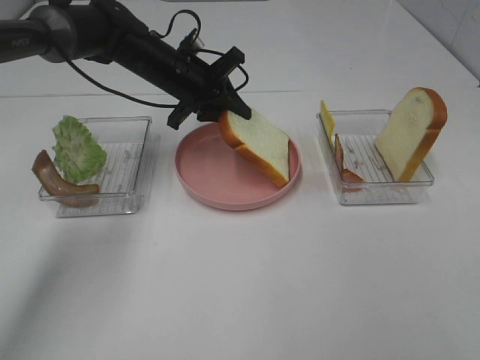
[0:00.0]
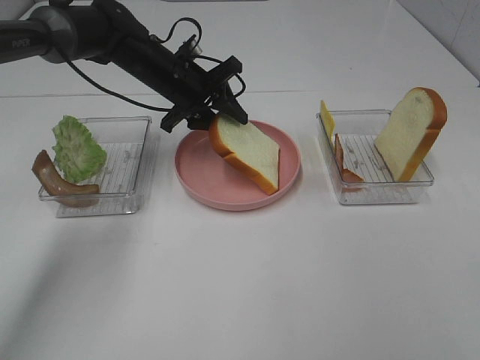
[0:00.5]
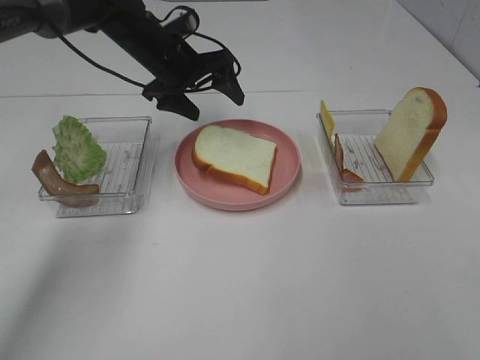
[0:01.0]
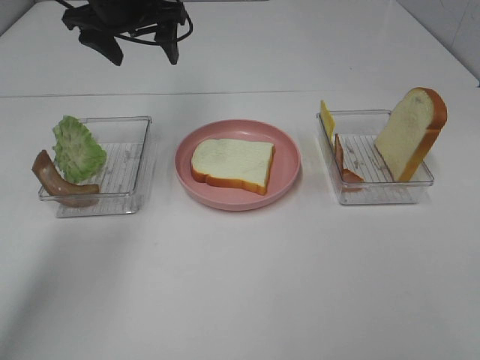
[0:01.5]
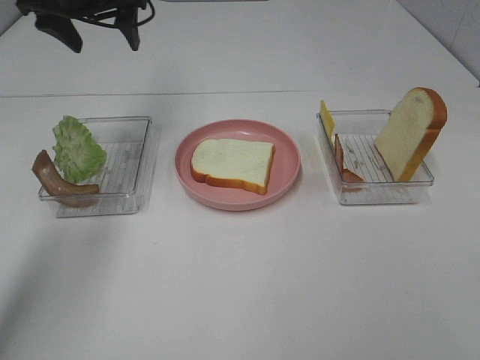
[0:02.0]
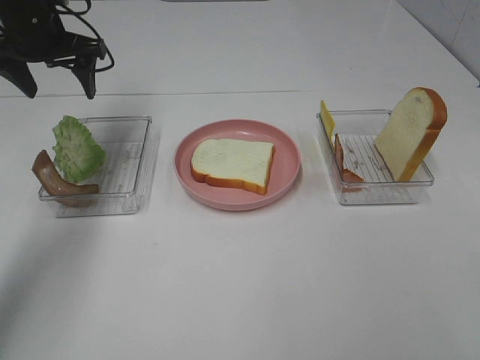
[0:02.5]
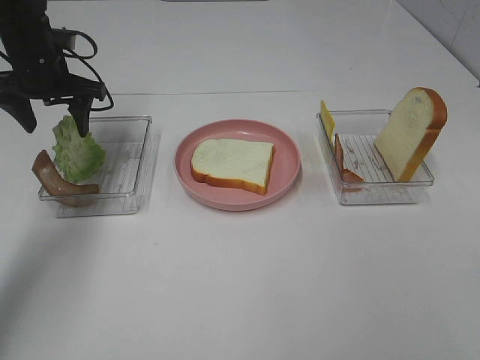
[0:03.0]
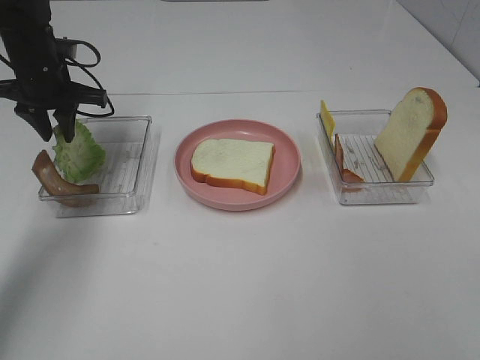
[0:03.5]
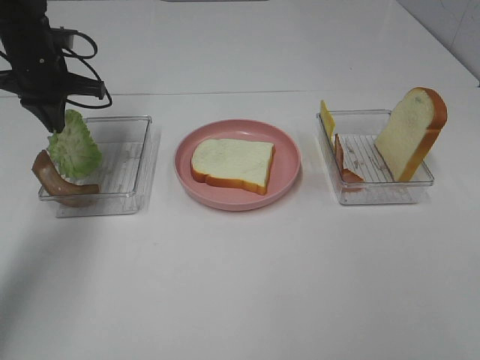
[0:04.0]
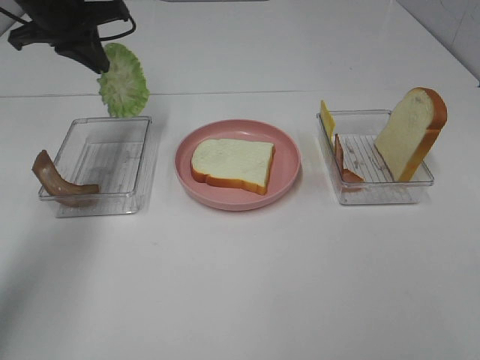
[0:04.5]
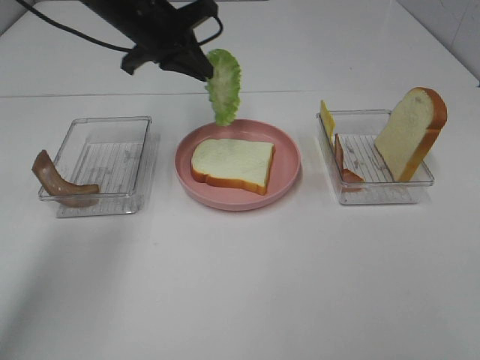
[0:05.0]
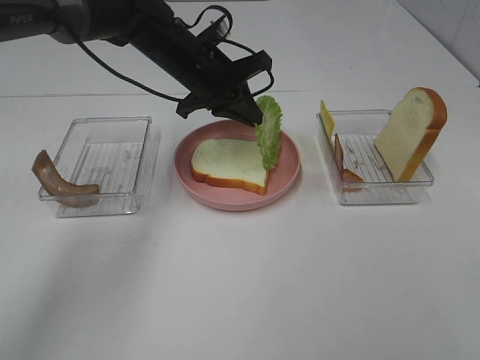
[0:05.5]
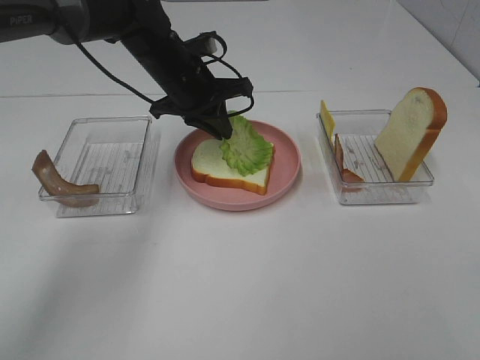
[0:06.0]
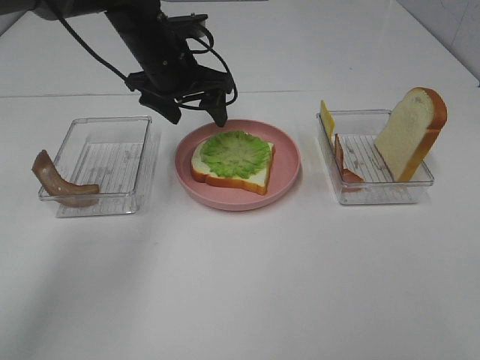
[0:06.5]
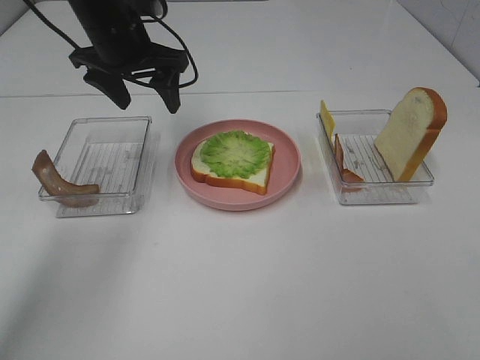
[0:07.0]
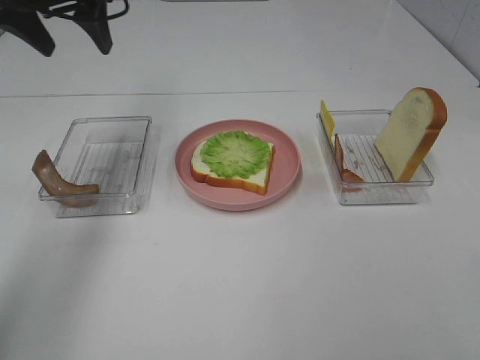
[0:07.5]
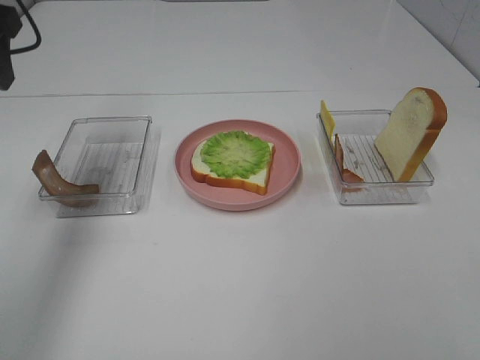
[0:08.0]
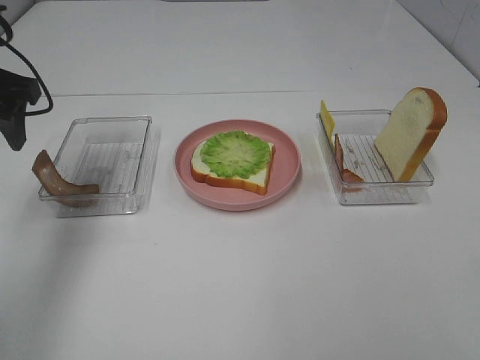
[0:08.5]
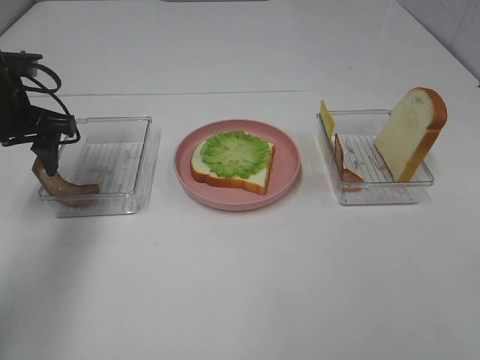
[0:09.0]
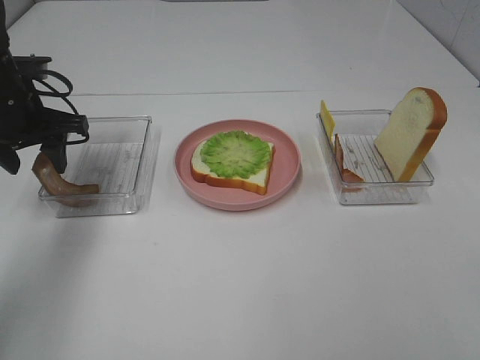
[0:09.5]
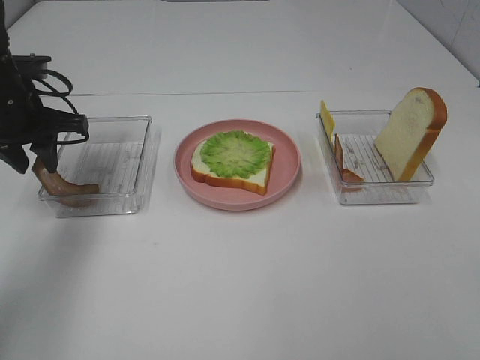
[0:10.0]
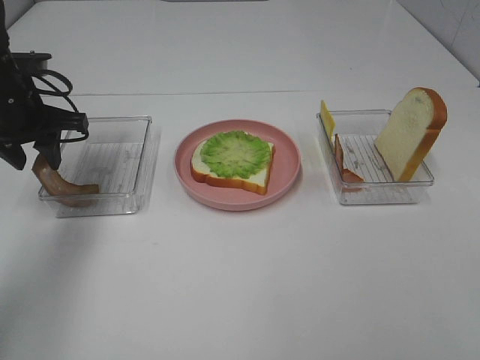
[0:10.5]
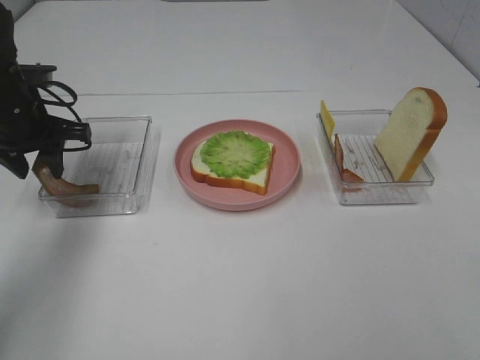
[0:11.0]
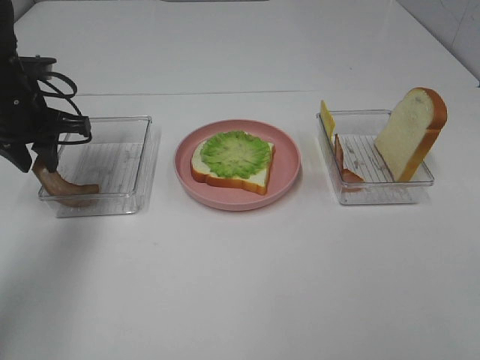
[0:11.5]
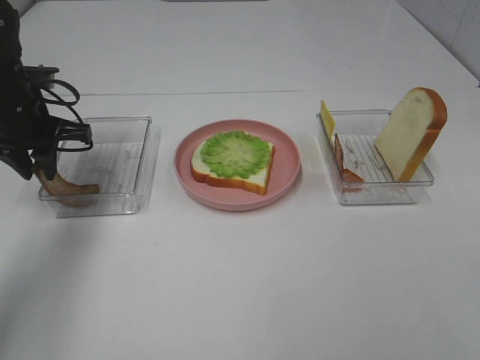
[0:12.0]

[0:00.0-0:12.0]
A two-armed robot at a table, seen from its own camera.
Task of the whole recording: Make sandwiches.
Step, 1.5 to 3.5 s: Left hand:grab the lettuce slice.
Step, 4.0 to 6.5 s: Left hand:place the lettuce slice on the bread slice.
0.0 to 2.0 s: The left gripper heads upward and to the left, covering roughly 20 cm, and opens up.
2.0 to 4.0 s: The left gripper travels downward and to the left by approximately 10 cm, and closes its fingers.
4.0 to 6.0 s: The left gripper moves to the right, some 20 cm.
6.0 to 8.0 s: The left gripper travels to the left, upward and backward by roughly 30 cm, and opens up.
8.0 to 10.0 s: The left gripper shifts approximately 15 cm downward, and closes up.
10.0 to 12.0 s: The grippers make only small movements.

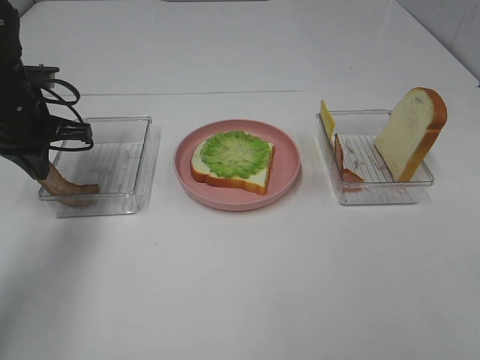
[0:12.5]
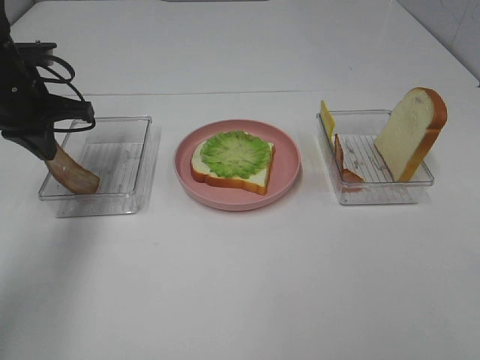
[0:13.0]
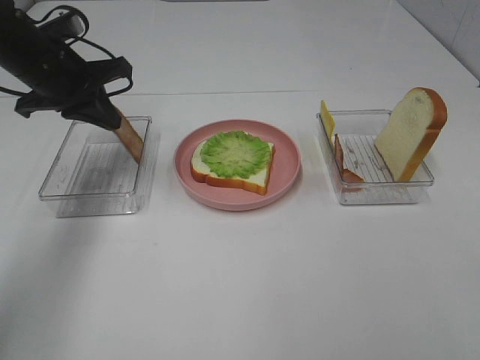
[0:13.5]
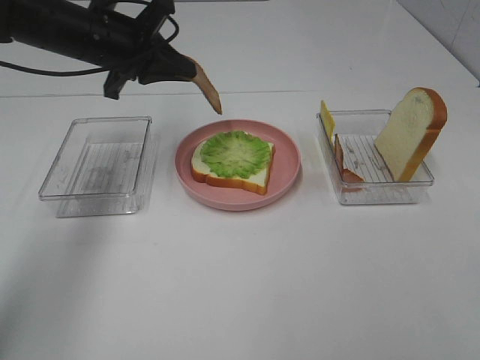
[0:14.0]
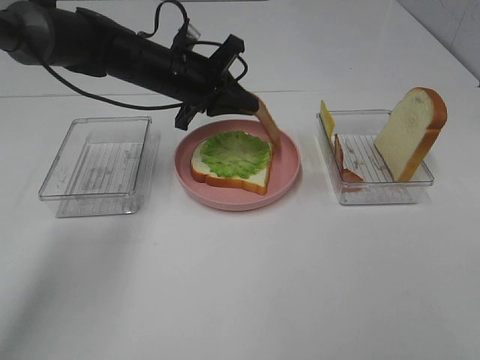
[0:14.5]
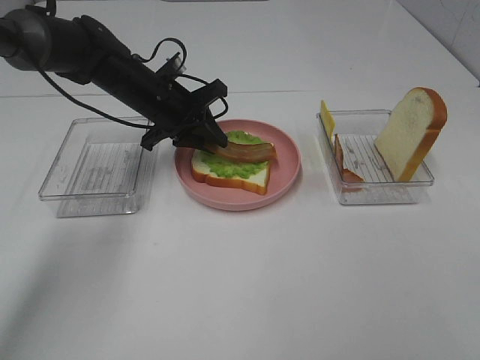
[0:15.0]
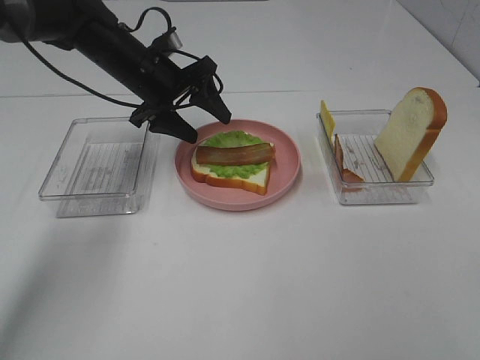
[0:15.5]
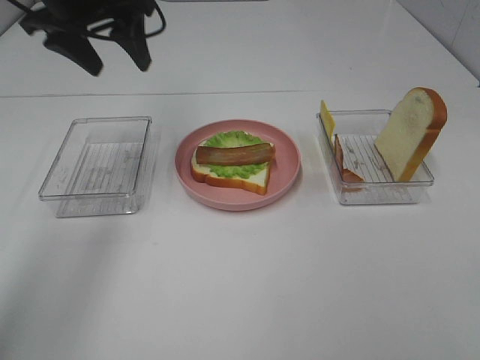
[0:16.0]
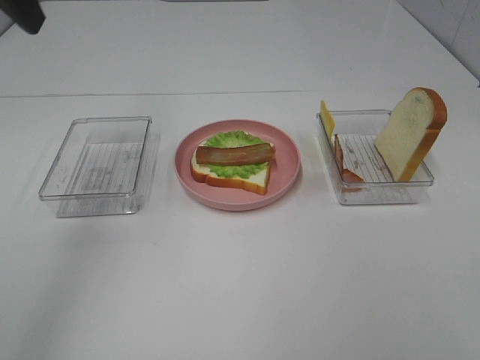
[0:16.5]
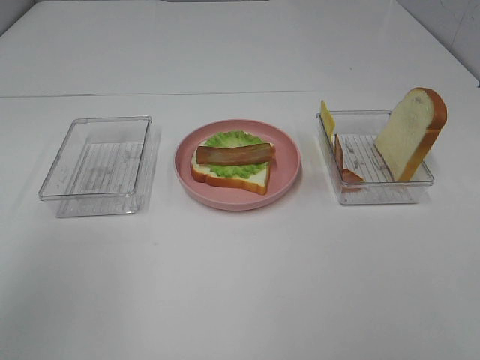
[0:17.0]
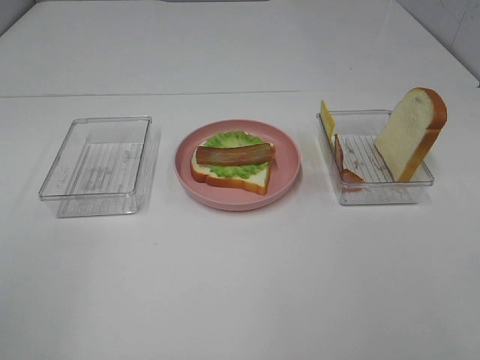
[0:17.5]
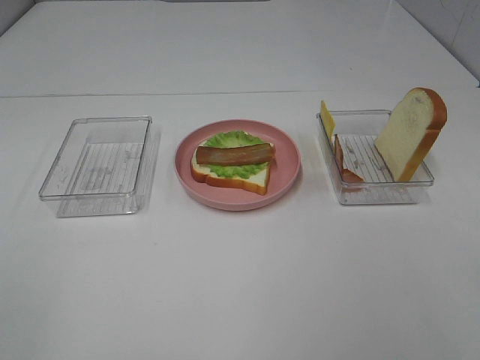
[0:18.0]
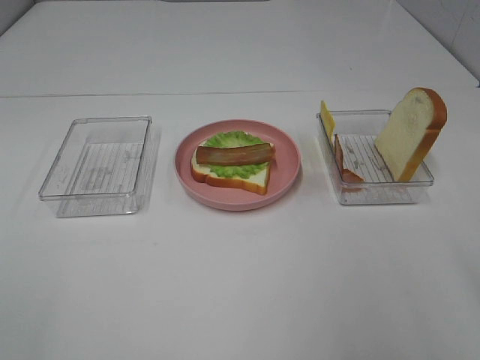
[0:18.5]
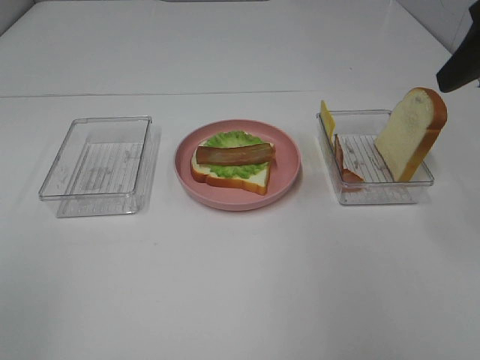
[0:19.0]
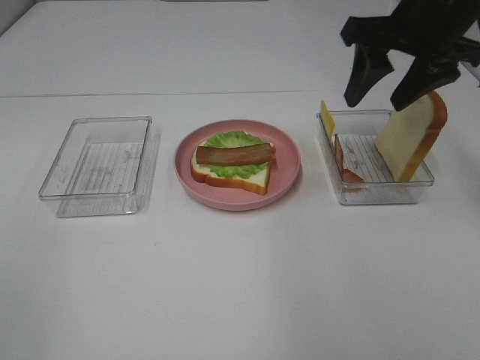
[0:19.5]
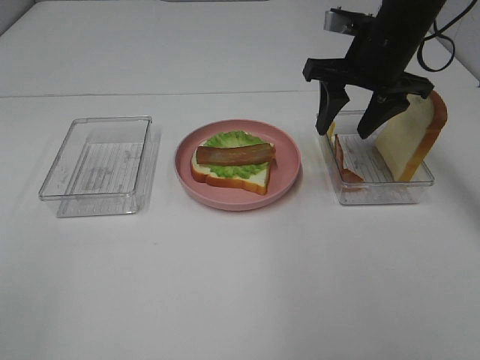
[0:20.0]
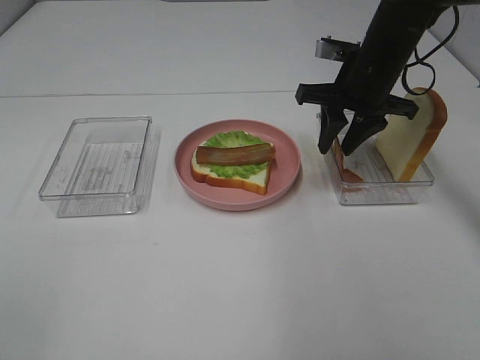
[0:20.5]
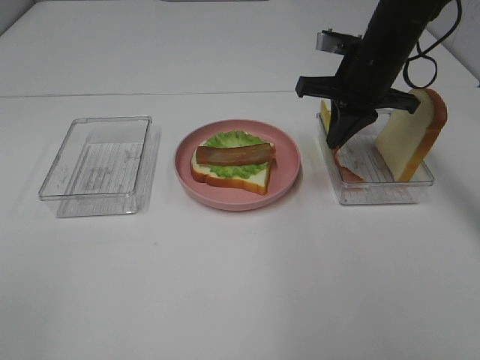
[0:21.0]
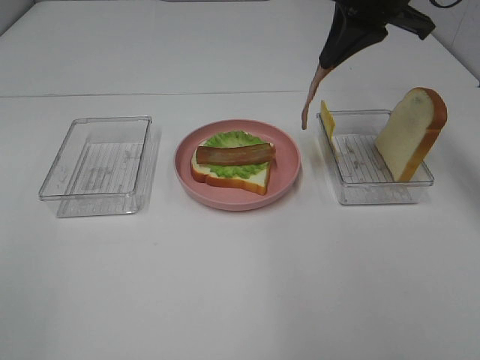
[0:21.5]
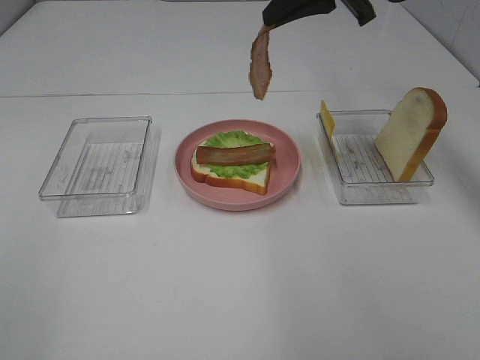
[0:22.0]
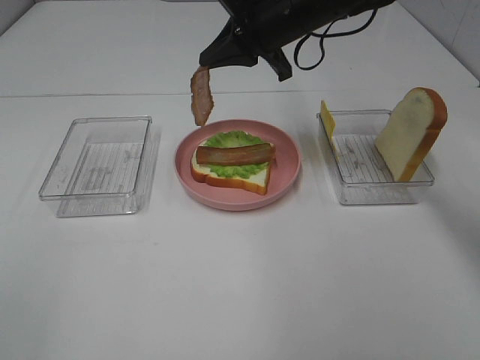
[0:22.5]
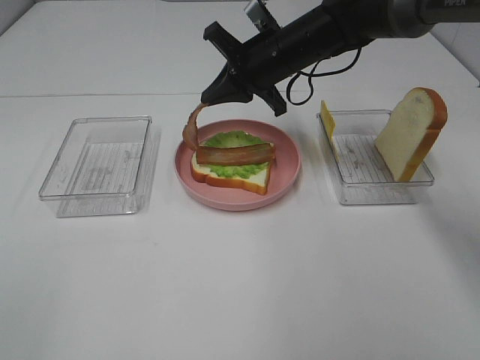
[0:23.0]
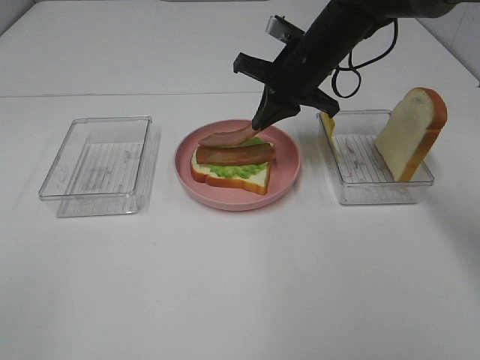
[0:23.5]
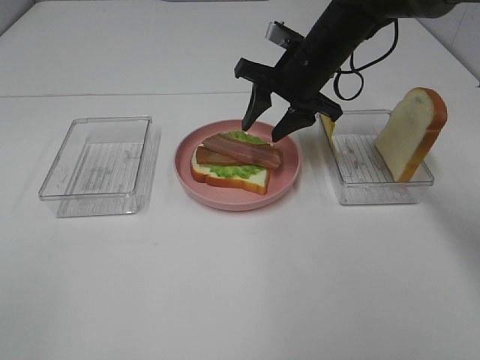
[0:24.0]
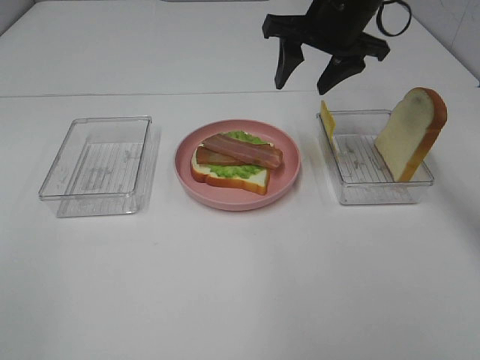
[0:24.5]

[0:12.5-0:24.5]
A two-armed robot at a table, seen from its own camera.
Task of the whole recording: Make sandwiches.
Step, 13.0 to 15.5 s: Left hand:place bacon on lettuce slice.
Step, 16.0 to 20.5 s: Right hand:grab the bacon.
Step, 21.0 to 24.0 s: Right hand:place bacon on bacon.
12.5 to 14.5 s: The left gripper is displaced to the right by about 15 cm.
14.5 to 16.5 s: The left gripper moves upward, backward and to the left, about 30 cm, and opens up.
16.5 to 18.5 s: The left gripper is displaced backward by about 30 cm.
18.5 to 20.5 s: The right gripper heads forward and downward, covering some 30 cm, and closes its fingers.
20.5 to 22.5 s: The right gripper moves to the left, roughly 10 cm, moves about 15 cm upward and comes back, and closes.
22.5 to 24.5 s: The right gripper shifts some 5 cm to the right, and opens.

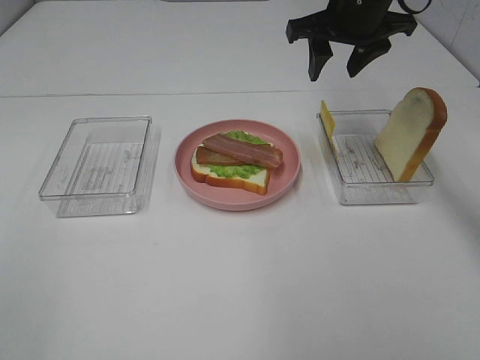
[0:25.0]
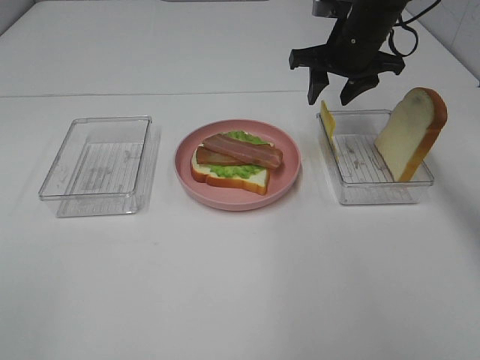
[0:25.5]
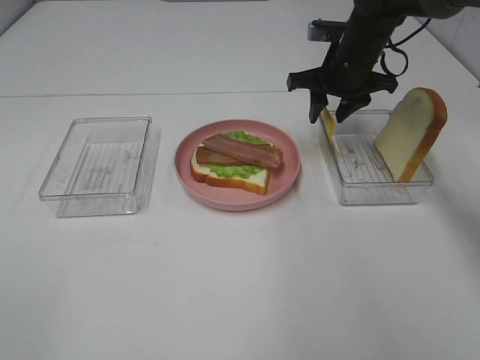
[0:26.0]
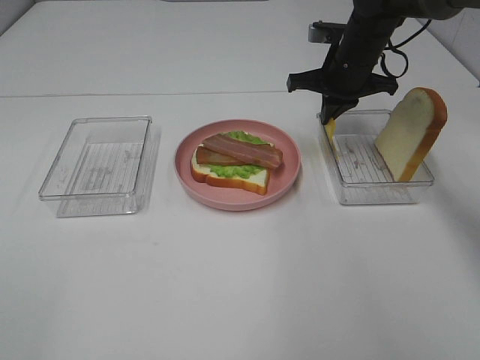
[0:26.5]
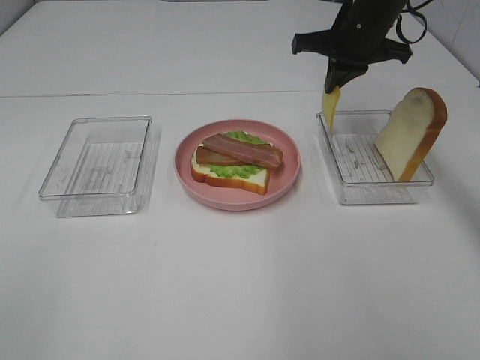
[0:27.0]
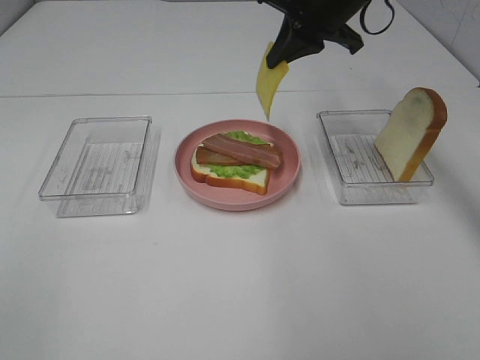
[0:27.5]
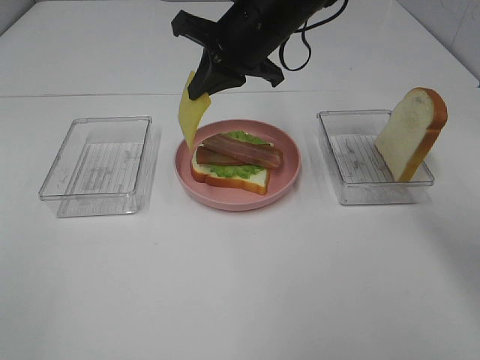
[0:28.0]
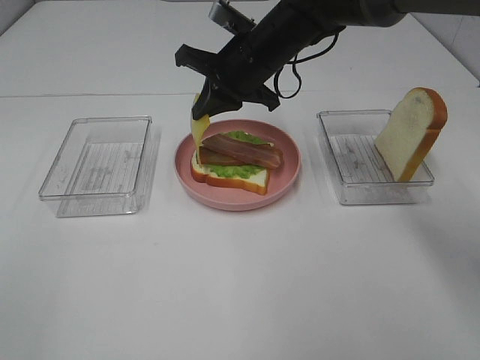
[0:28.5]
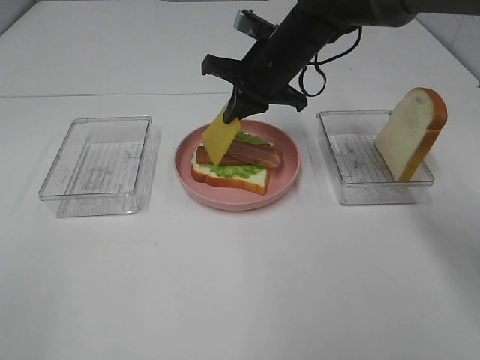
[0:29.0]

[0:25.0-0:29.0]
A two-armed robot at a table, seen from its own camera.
Task of the whole recording: Make sandwiches.
Step, 25.0 to 26.5 s: Right hand:grab the cheese slice.
25.0 to 27.0 s: The right gripper moves about 10 cm downward and comes back, and closes.
27.0 to 29.0 s: The right gripper travels to the left and downward by some 10 cm.
